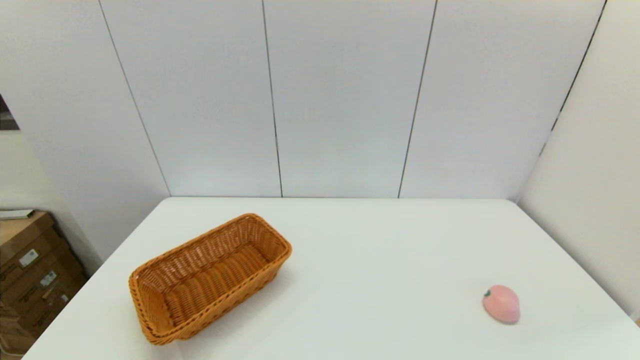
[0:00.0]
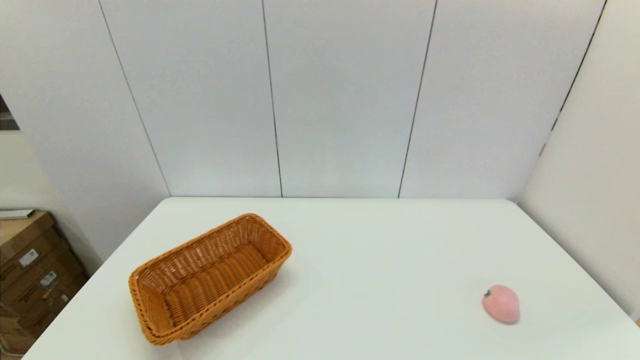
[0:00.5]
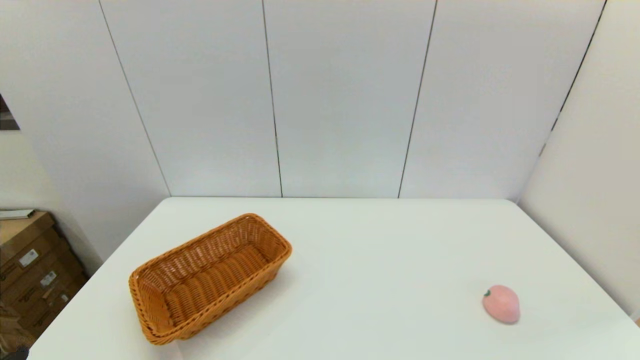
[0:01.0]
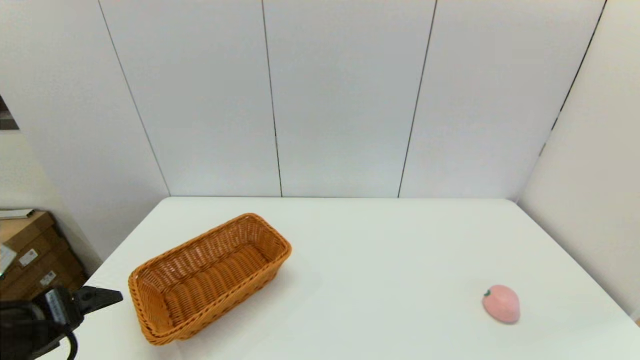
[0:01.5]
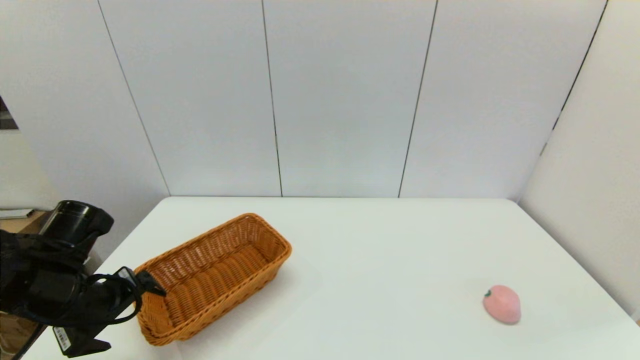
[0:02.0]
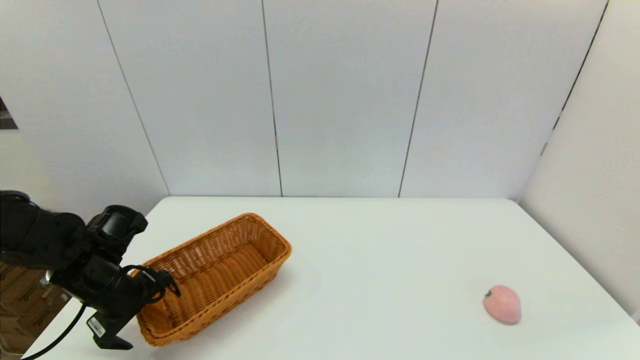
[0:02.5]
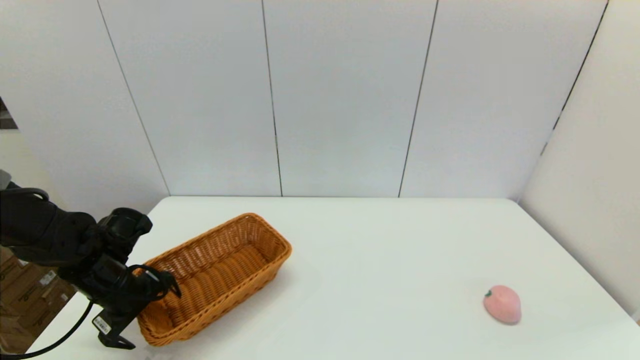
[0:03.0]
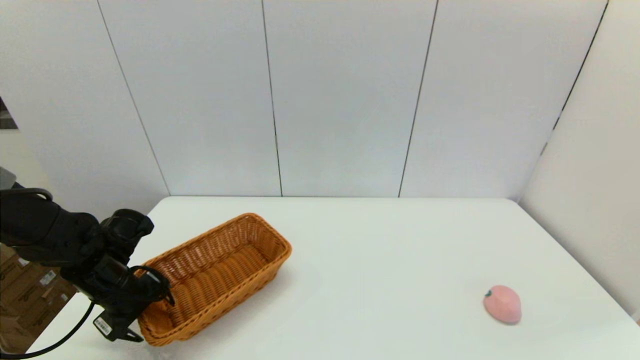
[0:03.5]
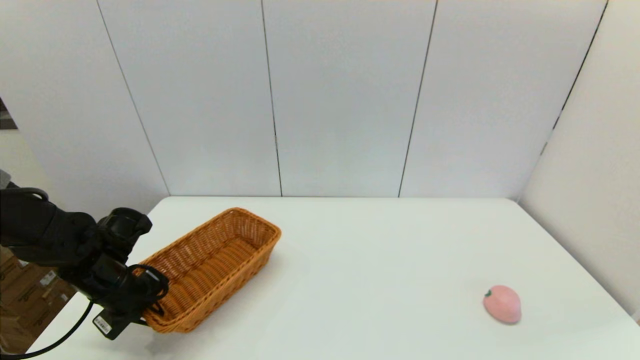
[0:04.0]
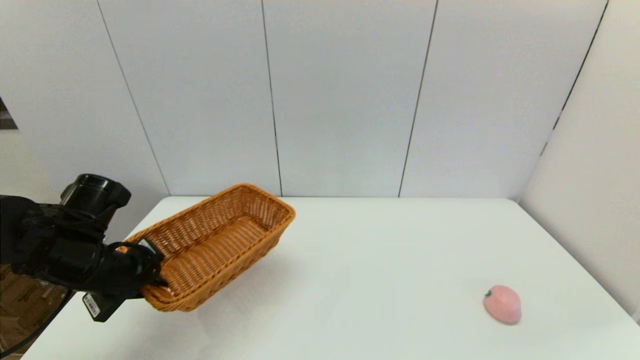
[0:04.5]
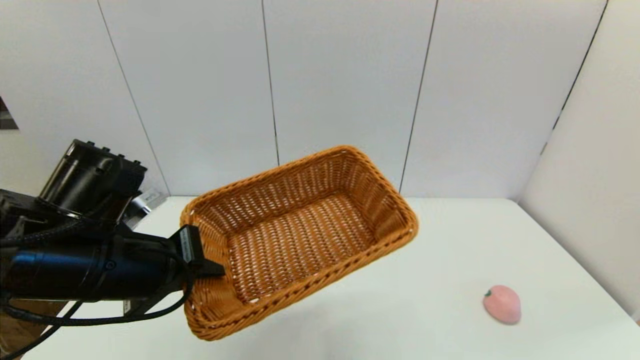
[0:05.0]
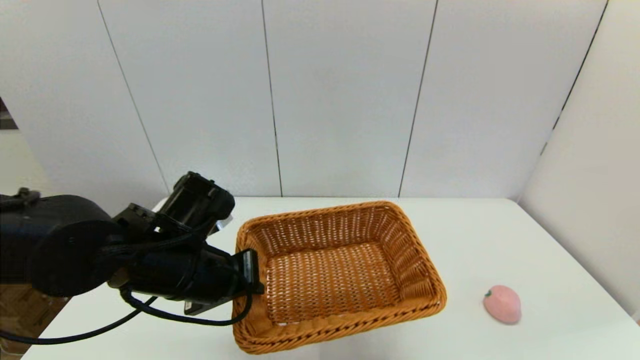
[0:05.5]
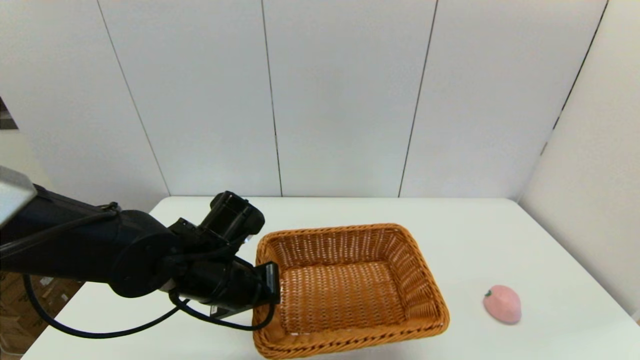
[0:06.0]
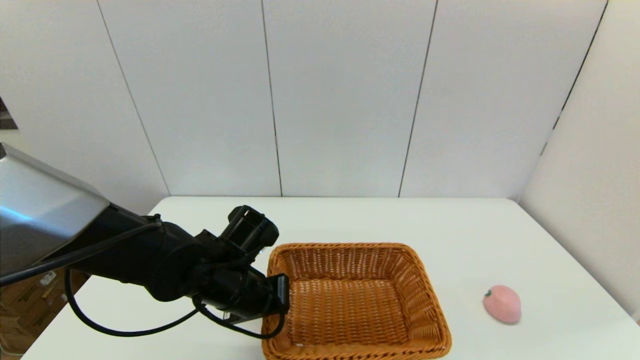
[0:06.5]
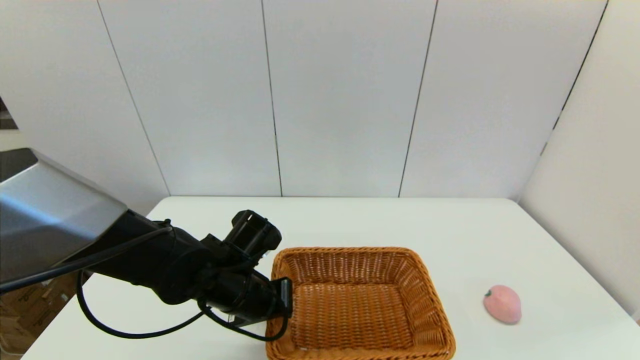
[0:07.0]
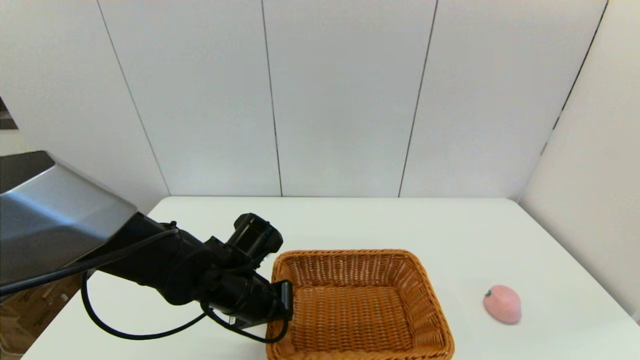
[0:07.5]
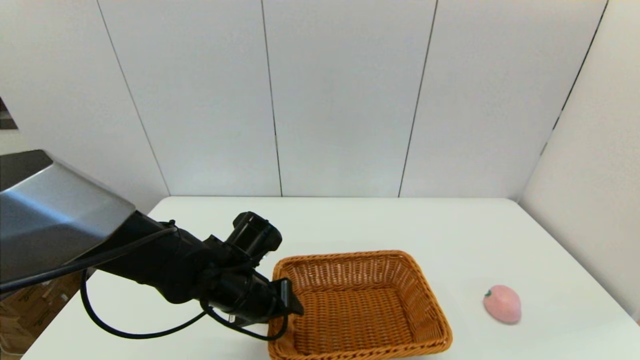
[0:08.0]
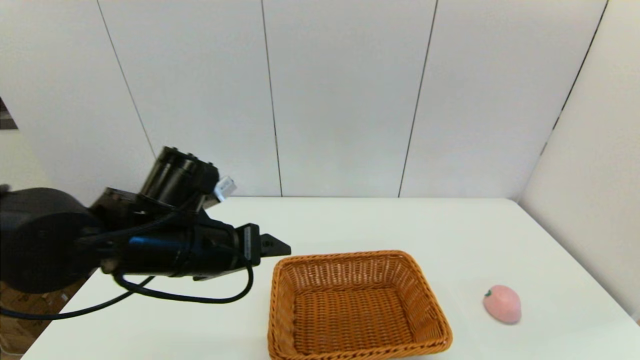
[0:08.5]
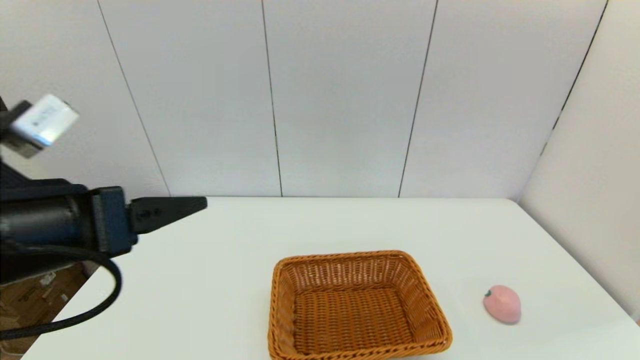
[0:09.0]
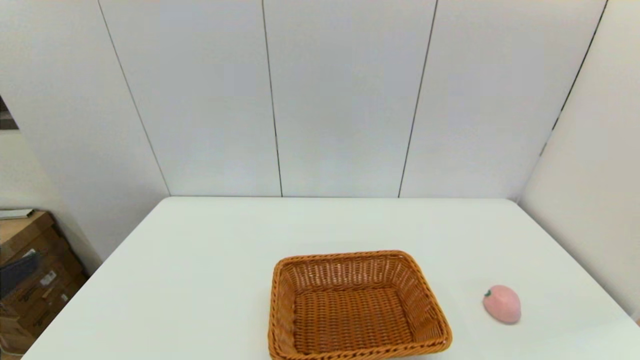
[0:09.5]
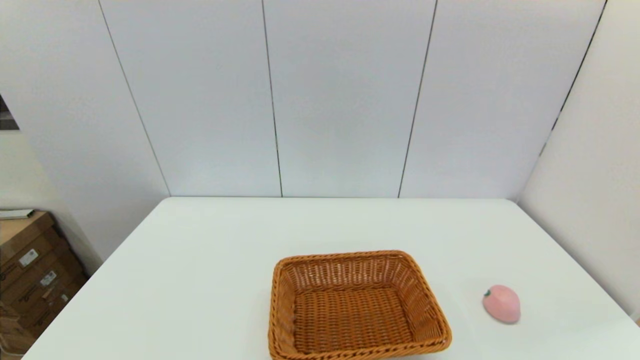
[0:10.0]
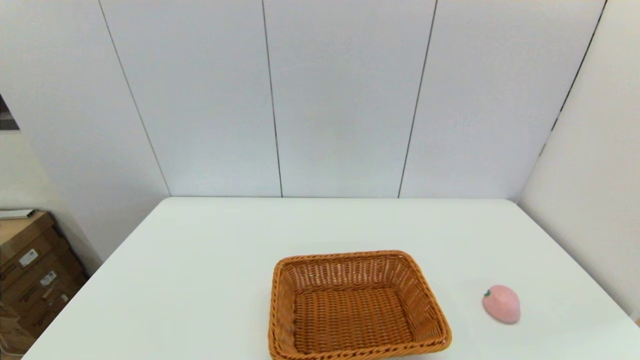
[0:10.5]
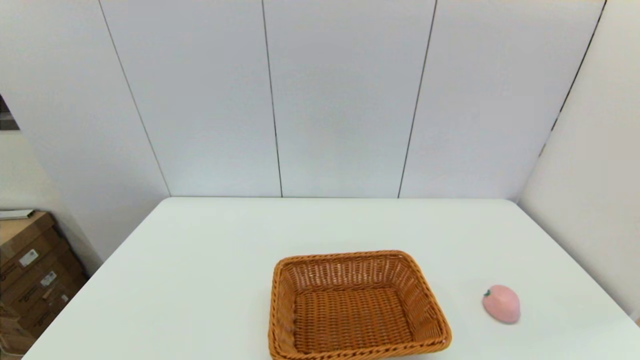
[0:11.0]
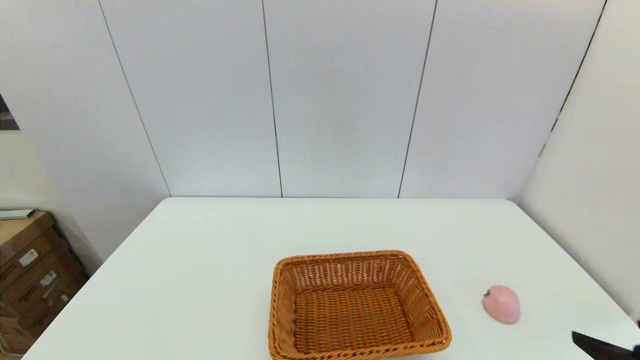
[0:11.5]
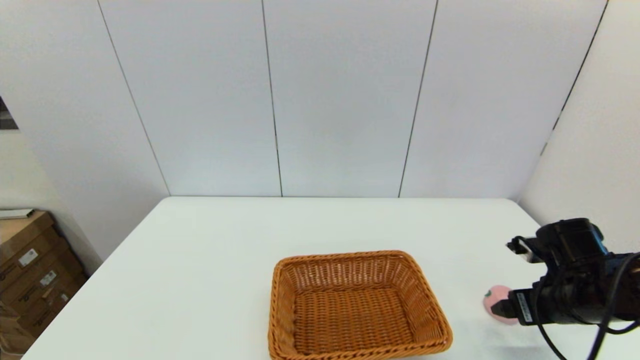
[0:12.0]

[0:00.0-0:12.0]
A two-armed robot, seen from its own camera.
Step, 0:00.0 to 0:04.0: Grasp the light basket with the left gripper.
Step, 0:04.5 to 0:08.0: Place the light basket on the middle of the table with the left gripper.
0:00.0 to 0:02.0: The left gripper travels forward by some 25 cm.
0:02.0 to 0:04.0: The left gripper shifts about 10 cm forward and downward, and closes up.
0:04.0 to 0:06.0: The left gripper shifts approximately 20 cm to the right.
0:06.0 to 0:08.0: The left gripper opens.
0:08.0 to 0:10.0: The left gripper is displaced backward, to the left and upward by some 35 cm, and opens its fingers.
0:10.0 to 0:12.0: The right gripper heads forward, covering about 25 cm.

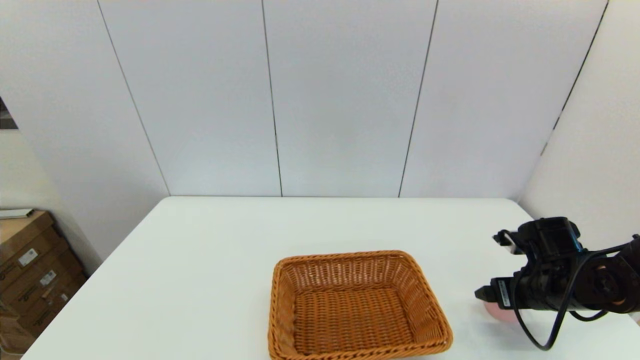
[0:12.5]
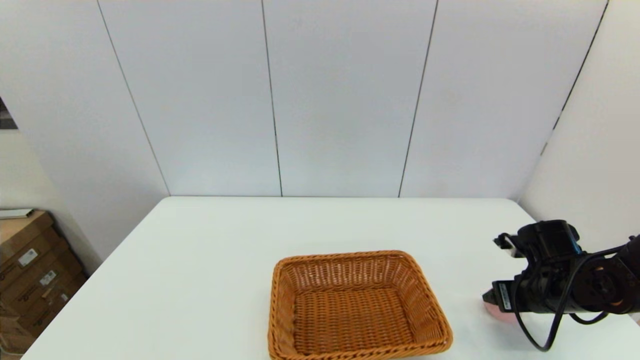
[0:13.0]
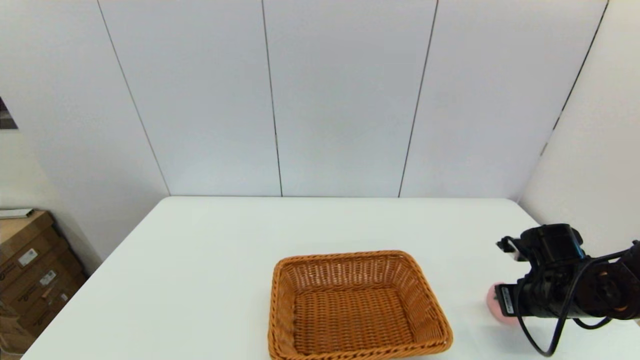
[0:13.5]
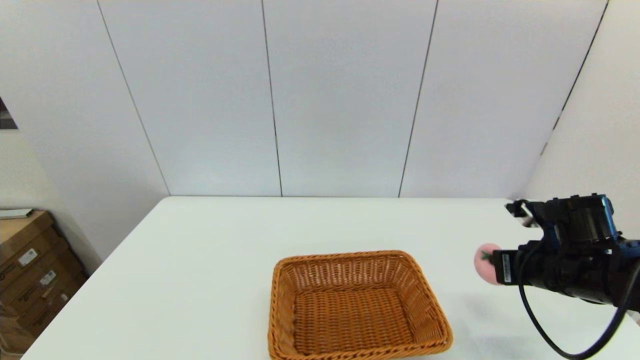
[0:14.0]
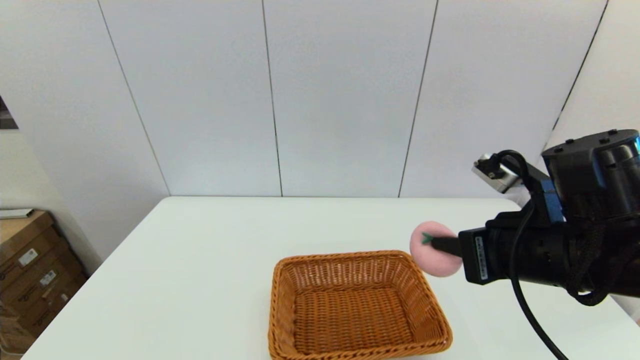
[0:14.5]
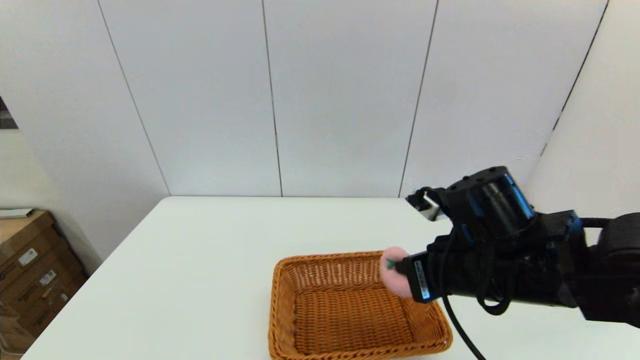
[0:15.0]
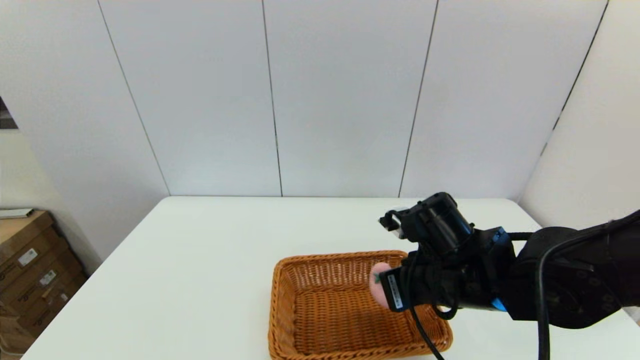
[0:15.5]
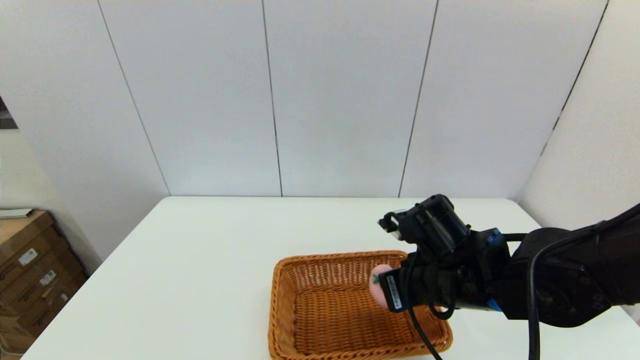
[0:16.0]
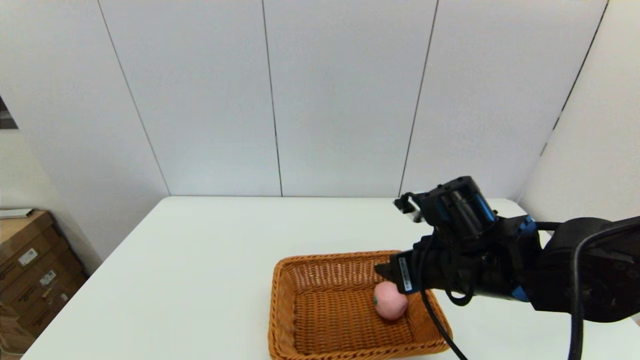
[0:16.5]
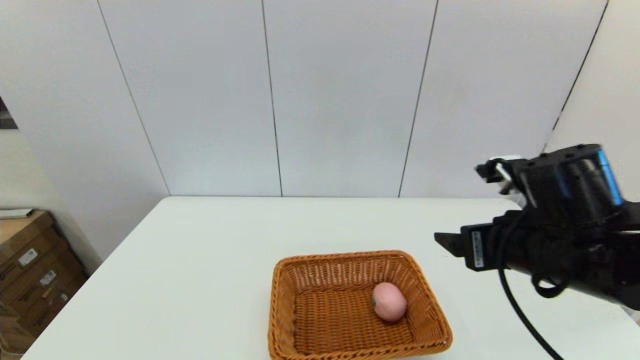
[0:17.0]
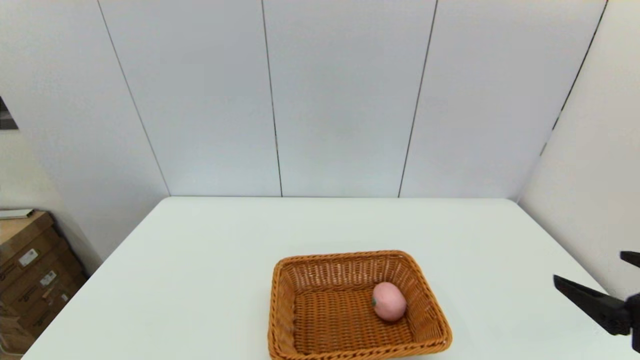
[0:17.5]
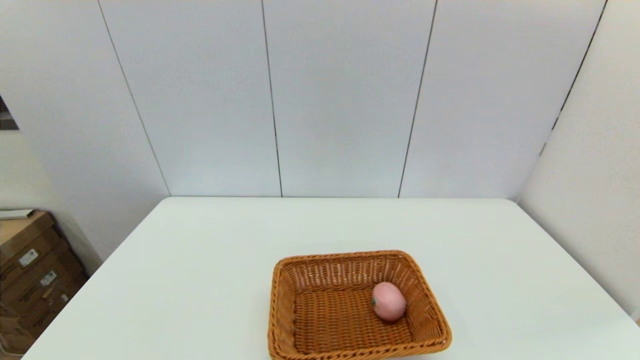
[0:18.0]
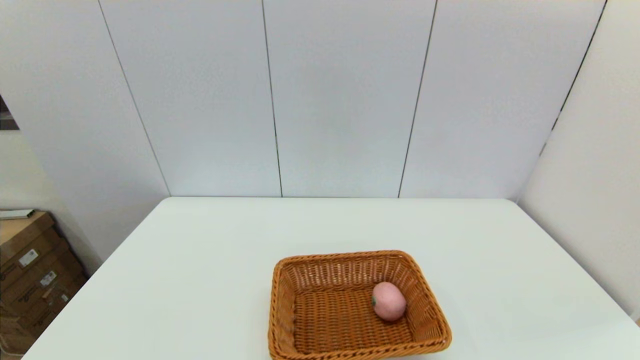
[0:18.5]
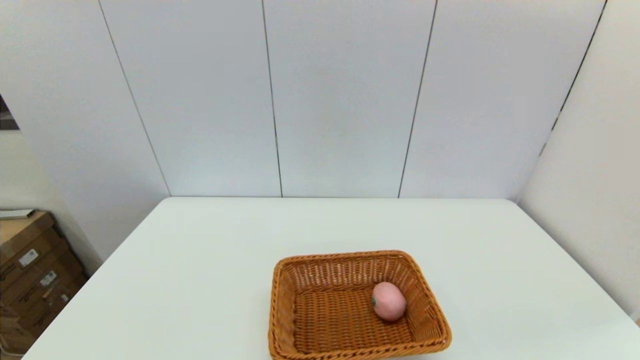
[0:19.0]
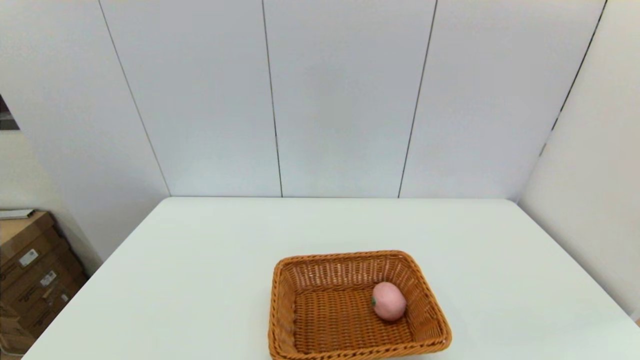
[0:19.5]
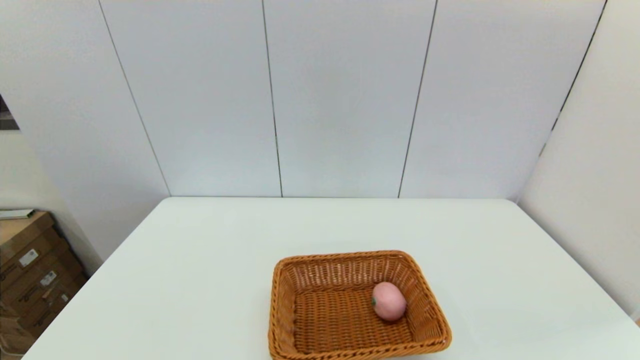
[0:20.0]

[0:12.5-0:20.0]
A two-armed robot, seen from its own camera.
Step, 0:13.5 to 0:16.0: Place the peach into the light basket with the right gripper.
0:12.5 to 0:14.5: The right gripper moves upward, to the left and backward, roughly 25 cm, and closes its fingers.
0:14.5 to 0:16.5: The right gripper heads downward and to the left, covering about 10 cm, and opens.
0:16.5 to 0:18.0: The right gripper shifts roughly 30 cm backward and to the right.
